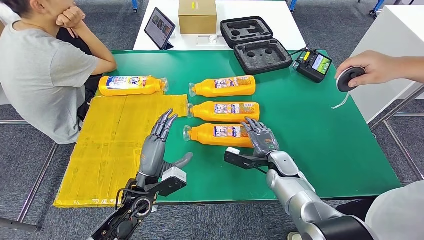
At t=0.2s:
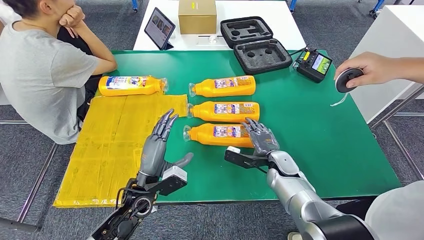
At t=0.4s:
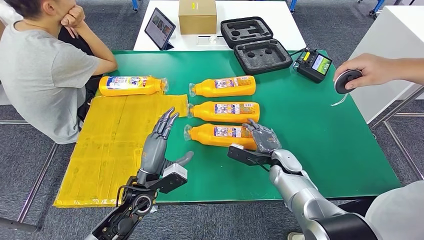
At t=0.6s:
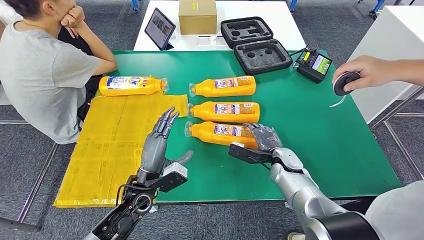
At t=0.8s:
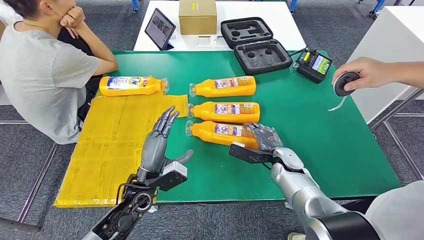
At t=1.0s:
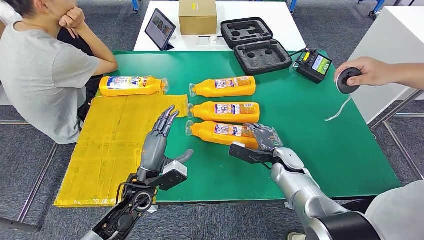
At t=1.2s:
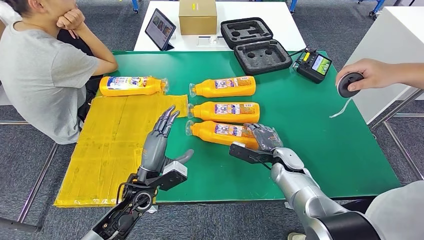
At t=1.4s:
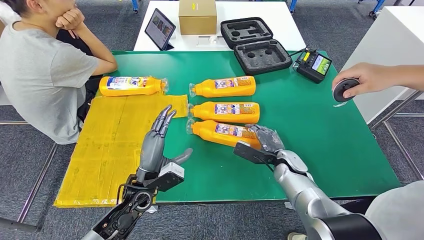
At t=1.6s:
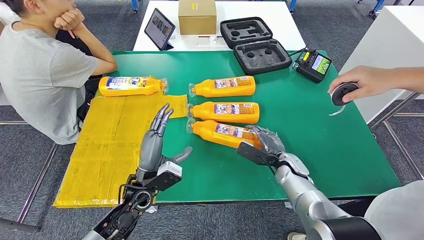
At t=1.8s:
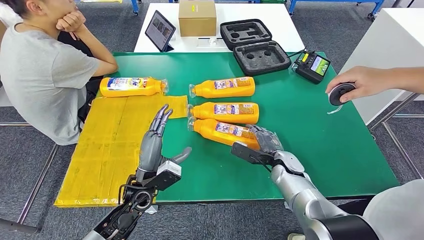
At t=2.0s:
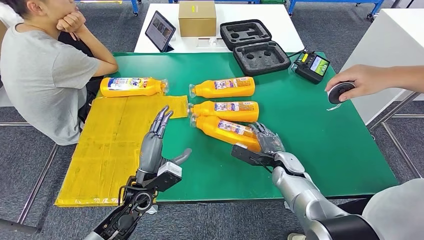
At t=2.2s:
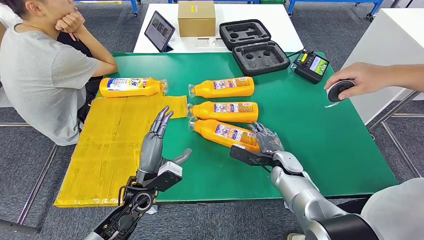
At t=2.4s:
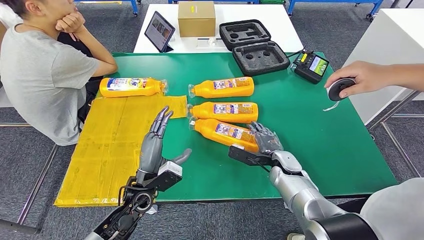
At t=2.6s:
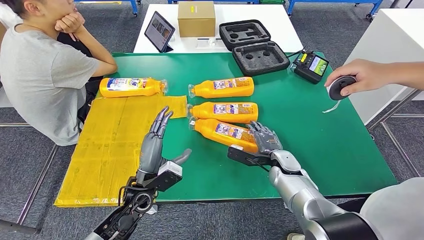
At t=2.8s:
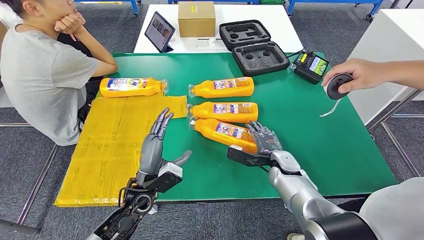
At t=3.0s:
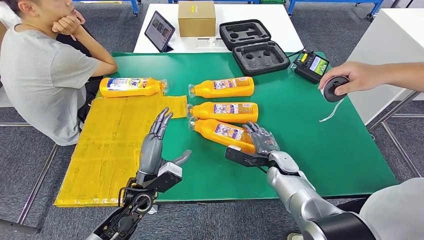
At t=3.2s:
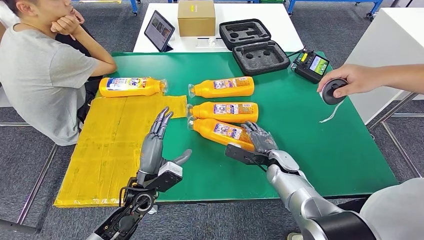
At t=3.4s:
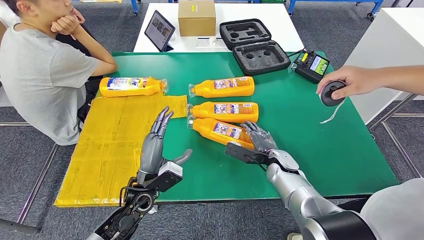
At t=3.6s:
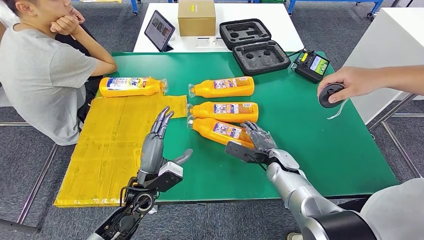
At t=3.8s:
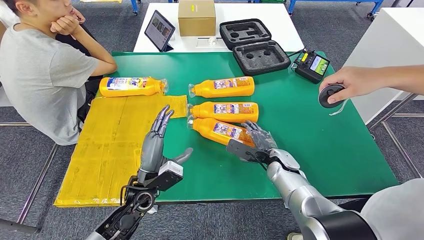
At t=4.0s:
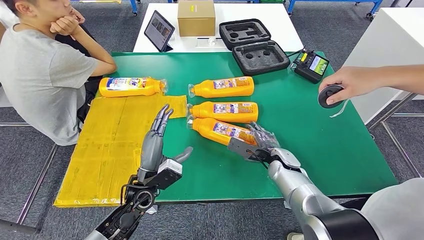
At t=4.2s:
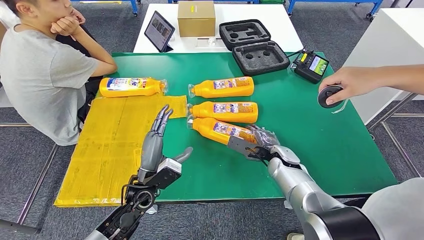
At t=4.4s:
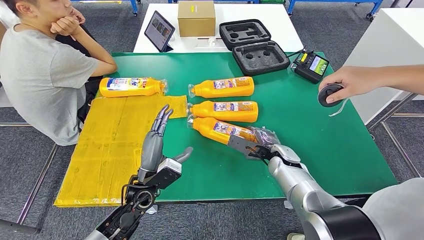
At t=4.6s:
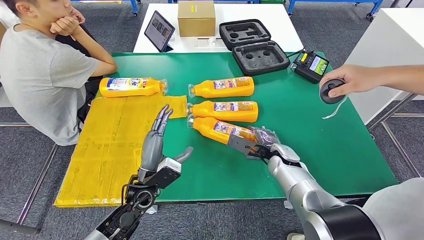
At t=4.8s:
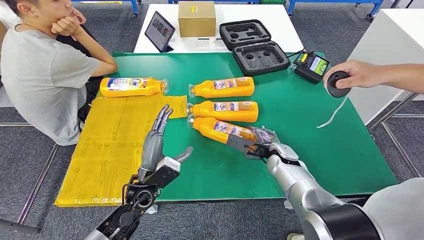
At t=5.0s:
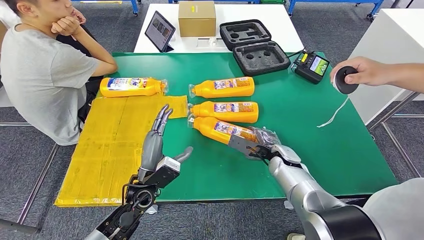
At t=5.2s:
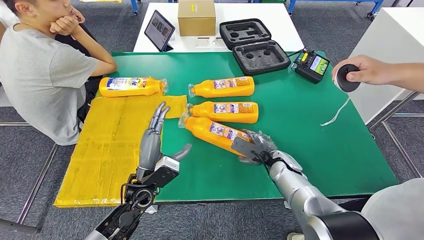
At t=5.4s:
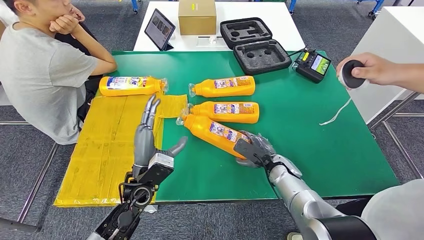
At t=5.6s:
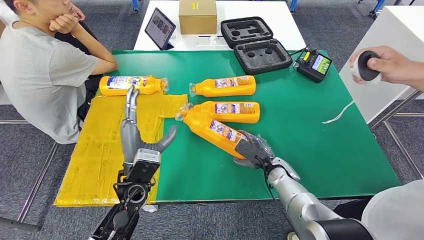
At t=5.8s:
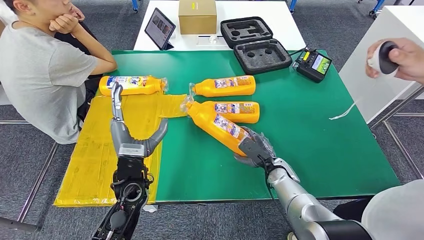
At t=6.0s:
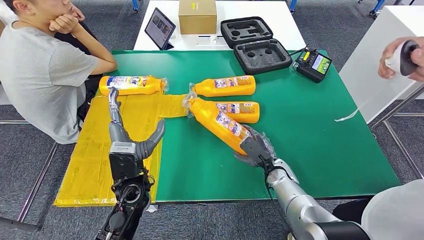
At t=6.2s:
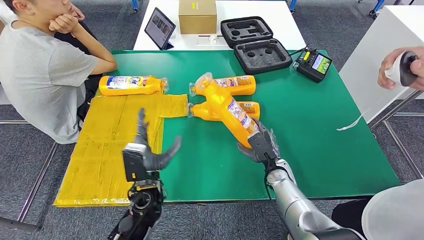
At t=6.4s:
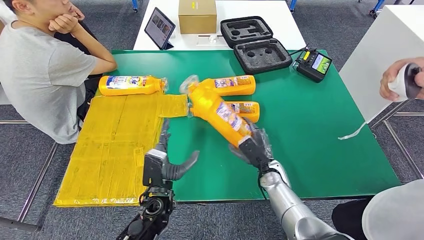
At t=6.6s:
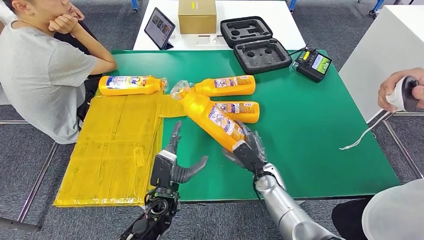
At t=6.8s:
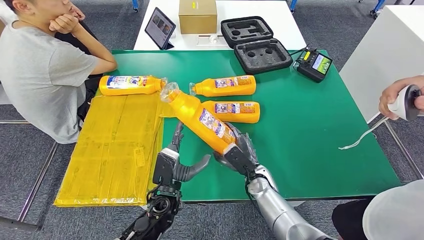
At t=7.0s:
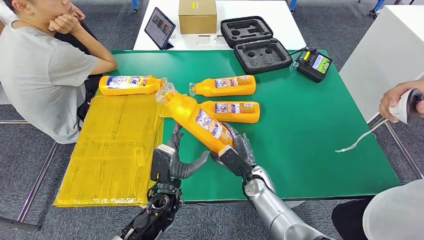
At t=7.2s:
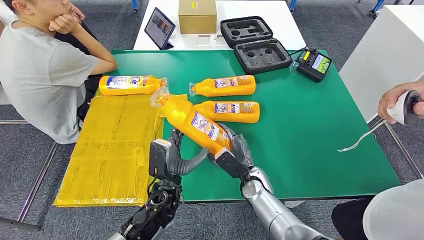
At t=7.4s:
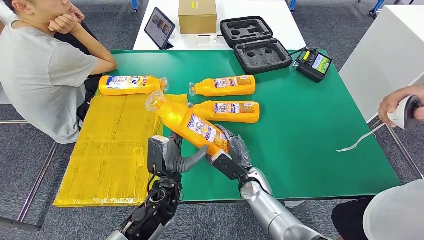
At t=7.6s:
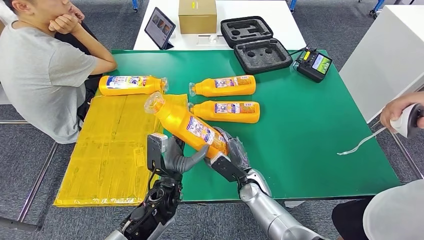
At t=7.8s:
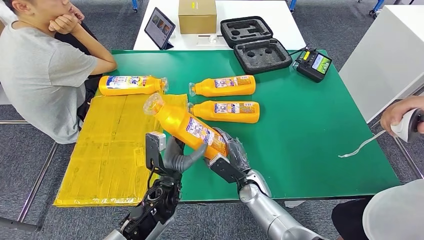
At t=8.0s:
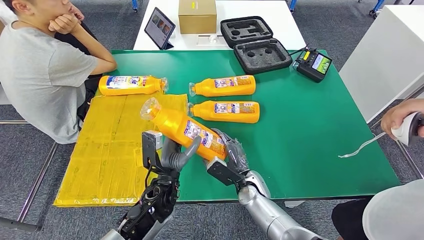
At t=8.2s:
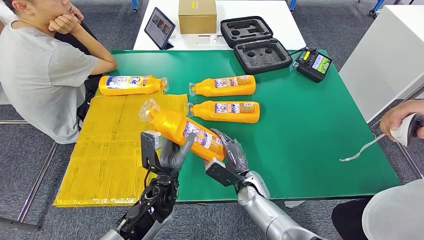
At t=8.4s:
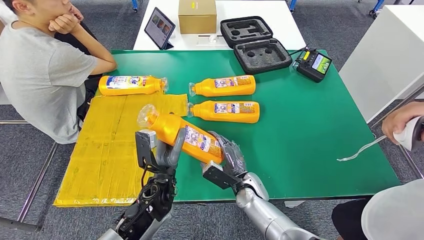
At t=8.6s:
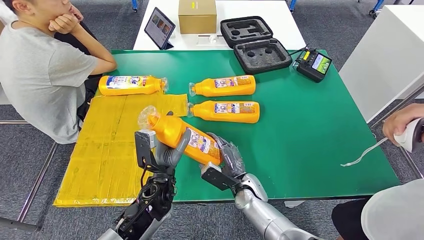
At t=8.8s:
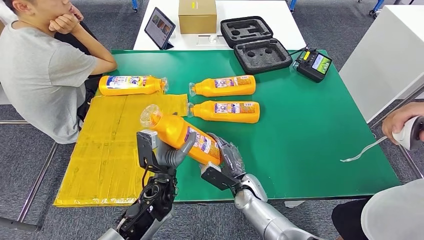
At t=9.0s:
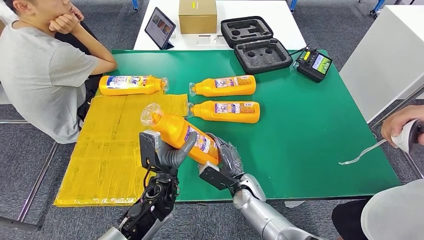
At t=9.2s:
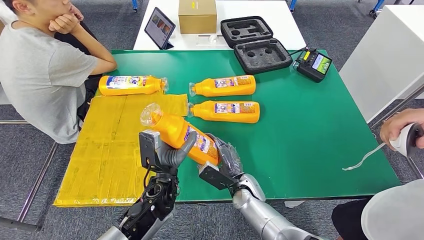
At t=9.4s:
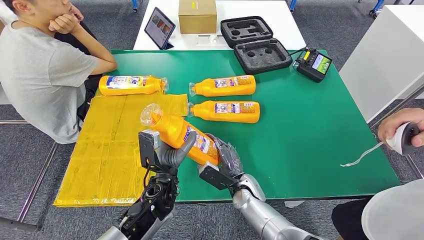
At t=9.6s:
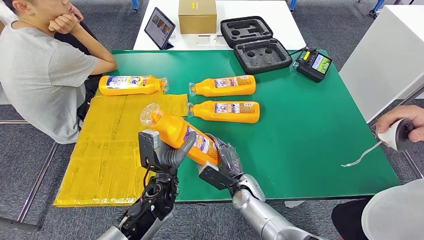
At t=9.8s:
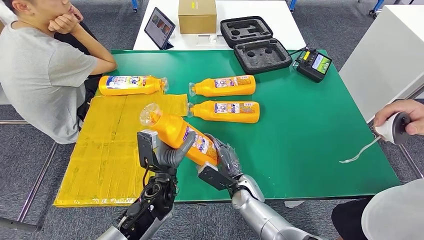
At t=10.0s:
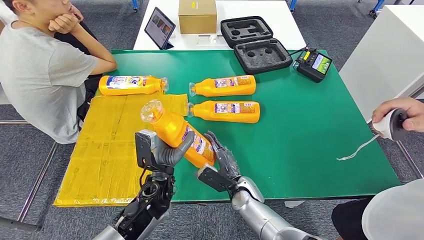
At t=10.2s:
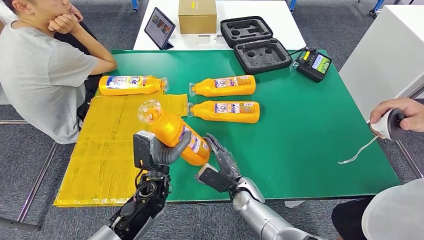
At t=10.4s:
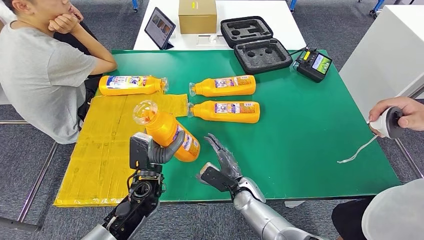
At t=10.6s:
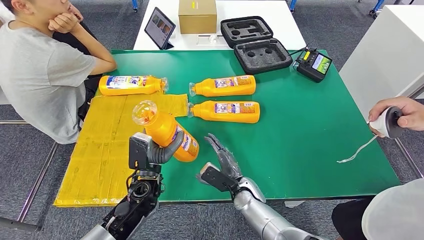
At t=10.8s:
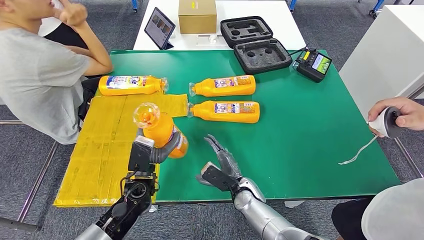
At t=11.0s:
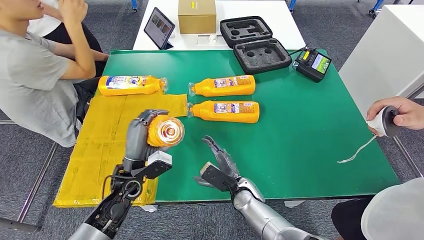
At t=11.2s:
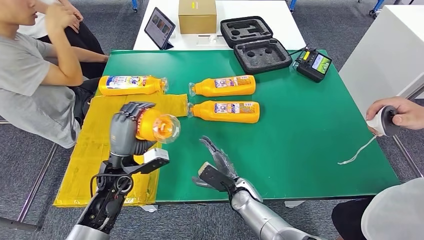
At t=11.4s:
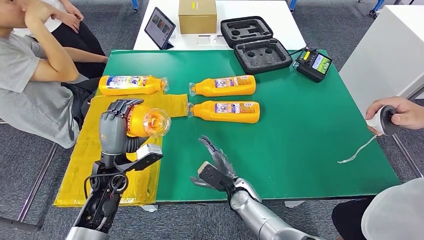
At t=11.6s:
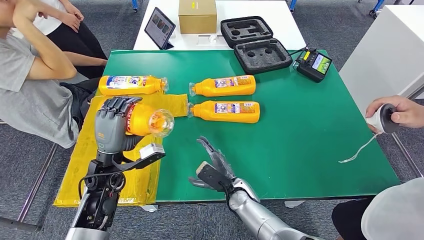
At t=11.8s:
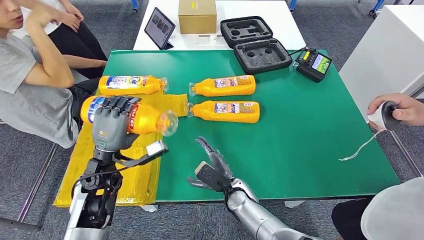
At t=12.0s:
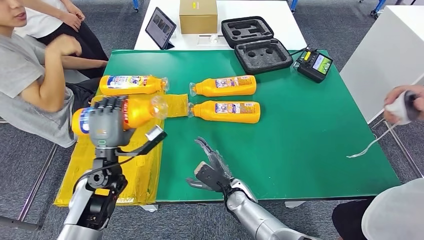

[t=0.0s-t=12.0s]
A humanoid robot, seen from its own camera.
Step, t=0.0s to t=6.2s: Pick up the bottle from the table.
t=1.6s to t=4.4s: There are only small adjustments of the hands.
t=6.0s to t=7.6s: The right hand goes approximately 10 cm to the left. The left hand shifts some 10 cm to the right and downward.
t=7.6s to t=9.0s: The hands make only small movements.
t=9.0s to t=10.4s: There are only small adjustments of the hands.

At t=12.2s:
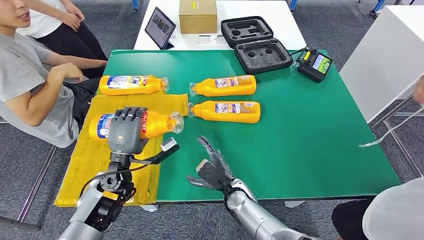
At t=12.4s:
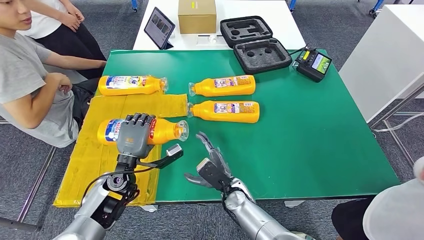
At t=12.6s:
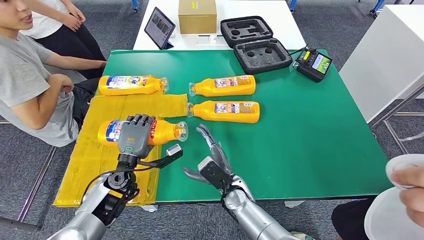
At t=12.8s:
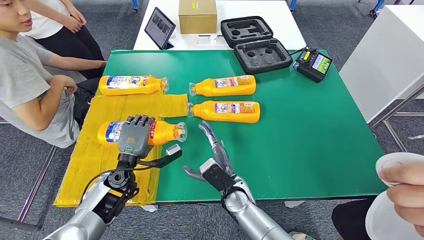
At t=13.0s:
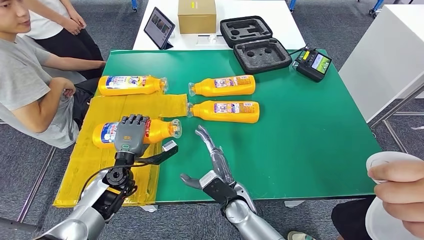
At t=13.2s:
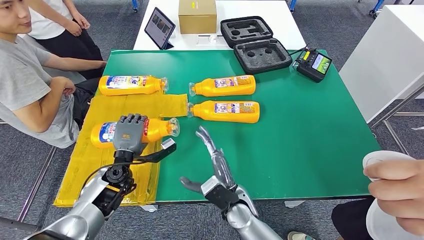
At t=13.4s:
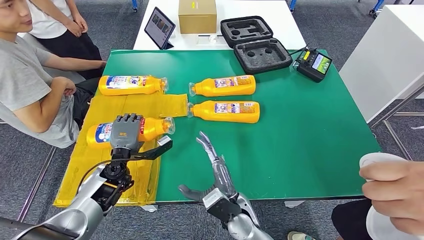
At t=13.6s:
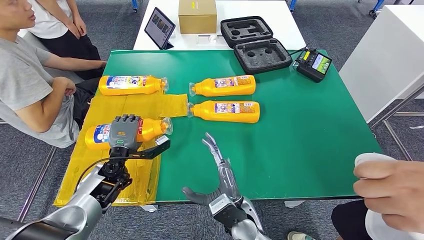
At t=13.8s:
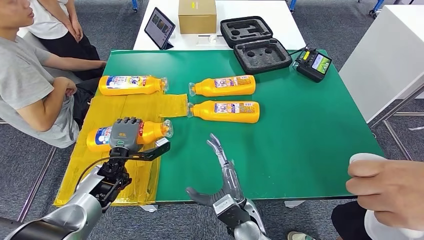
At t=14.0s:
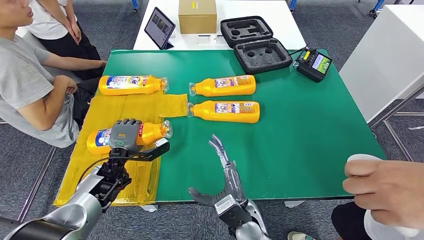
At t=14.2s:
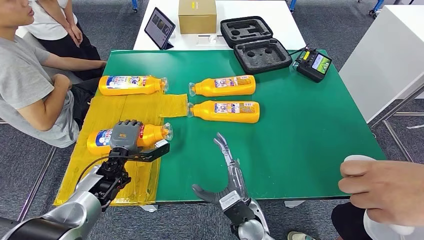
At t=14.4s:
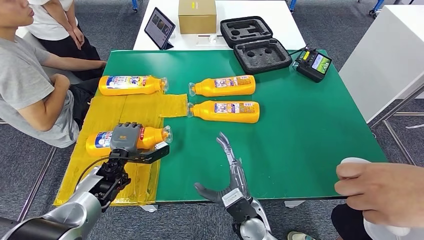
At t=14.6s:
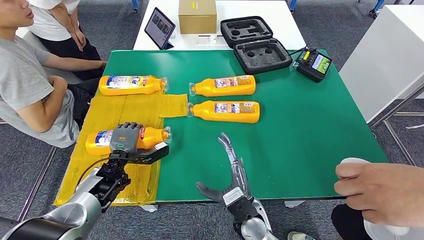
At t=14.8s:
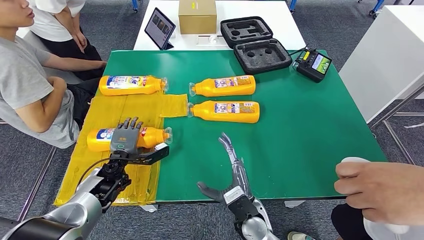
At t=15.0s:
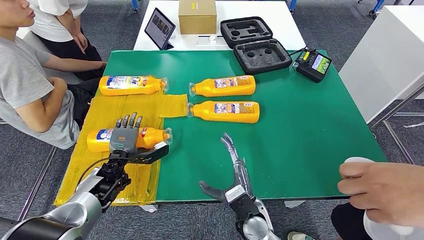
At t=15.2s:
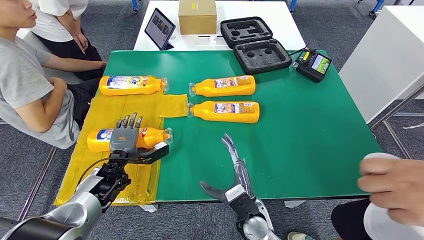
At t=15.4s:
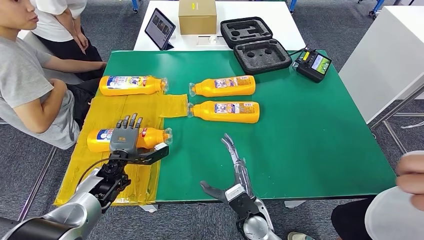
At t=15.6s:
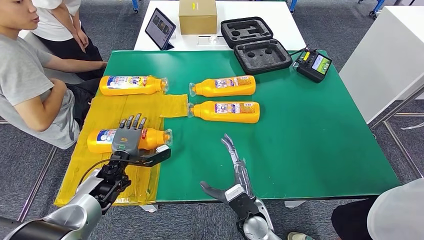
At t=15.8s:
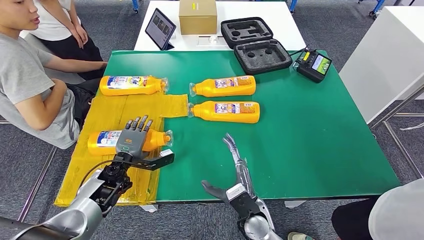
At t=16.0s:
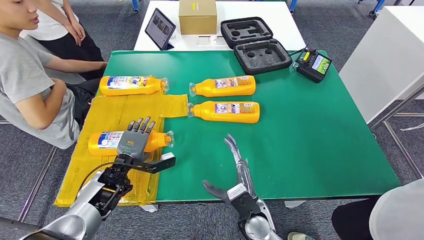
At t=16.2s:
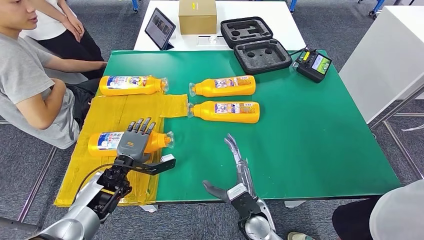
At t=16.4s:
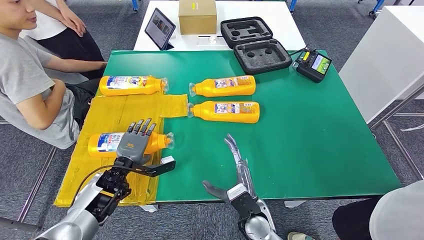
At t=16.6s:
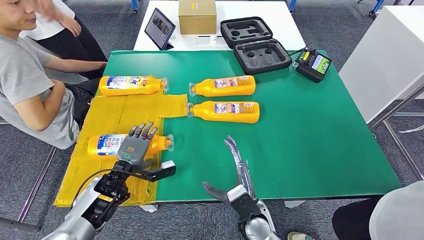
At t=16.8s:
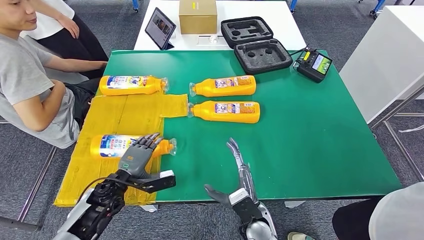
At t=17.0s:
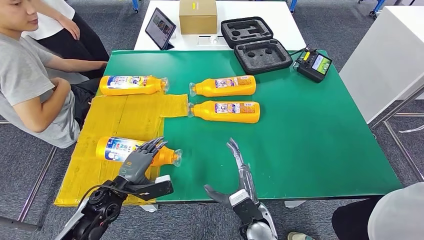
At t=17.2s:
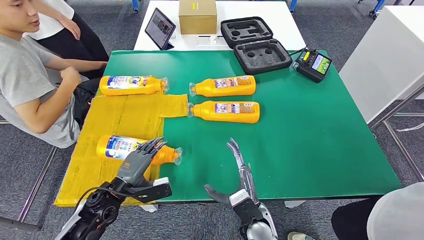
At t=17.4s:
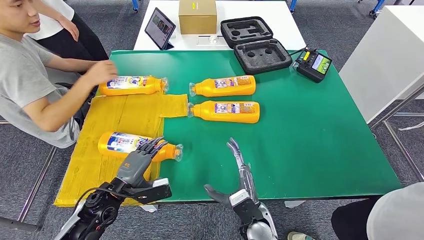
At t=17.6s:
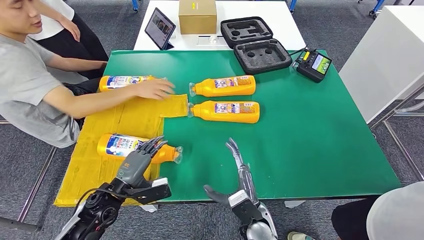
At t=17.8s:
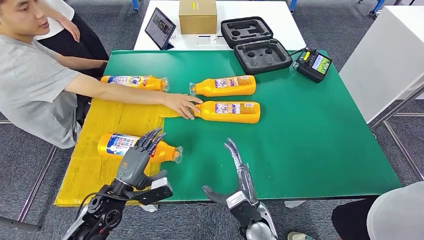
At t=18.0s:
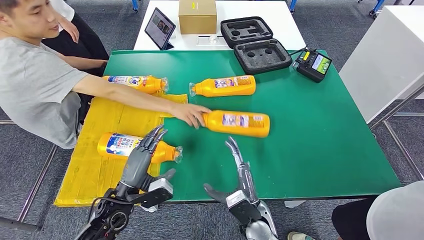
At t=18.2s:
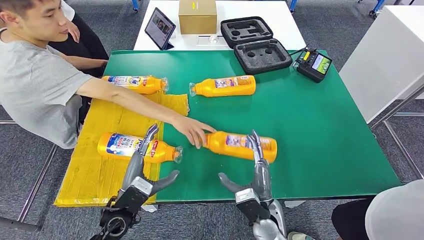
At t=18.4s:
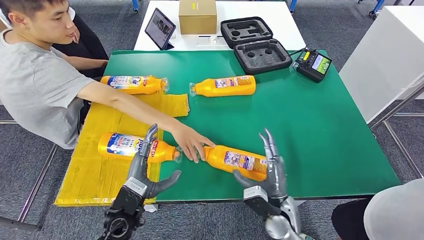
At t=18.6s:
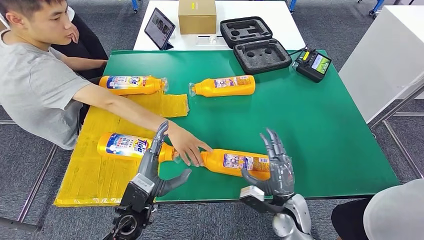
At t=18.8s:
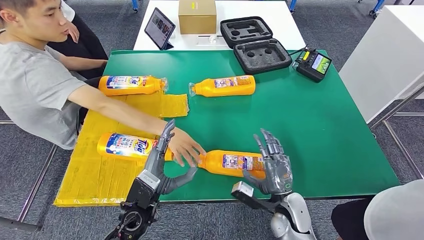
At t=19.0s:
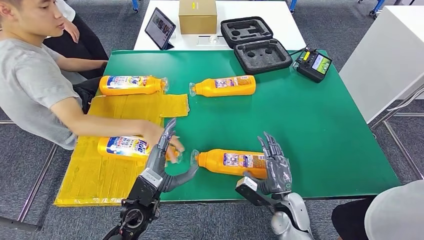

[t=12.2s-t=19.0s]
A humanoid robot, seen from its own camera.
Step, t=12.2s to t=16.0s: Flip the bottle to face forward.
t=13.6s to t=16.2s: The hands make only small movements.
t=16.2s to t=17.6s: The left hand goes about 5 cm backward.
t=17.6s to t=19.0s: The two hands go some 10 cm to the right.
